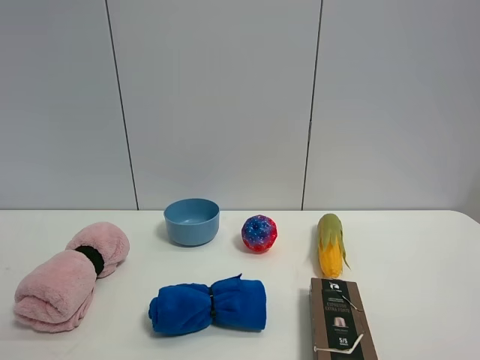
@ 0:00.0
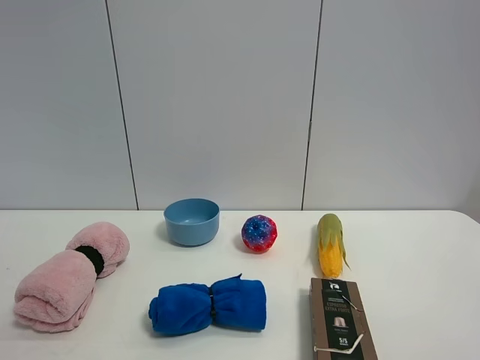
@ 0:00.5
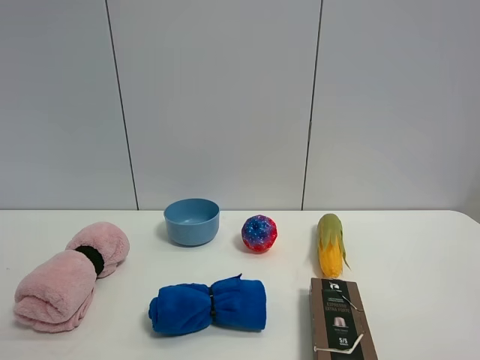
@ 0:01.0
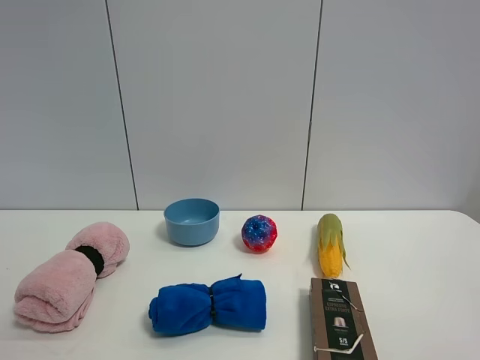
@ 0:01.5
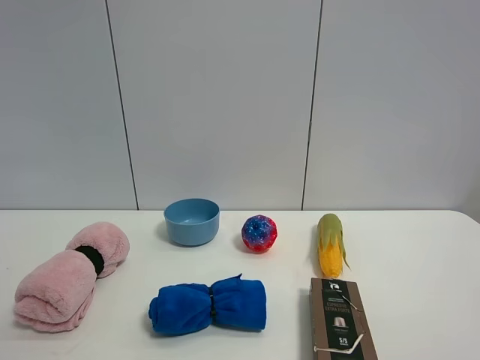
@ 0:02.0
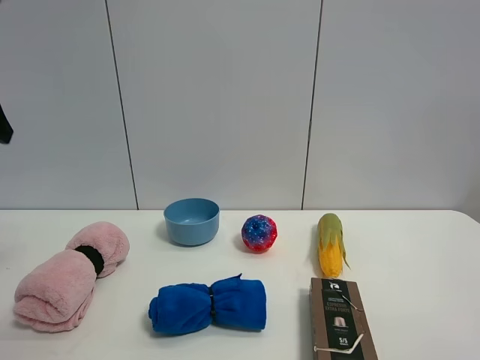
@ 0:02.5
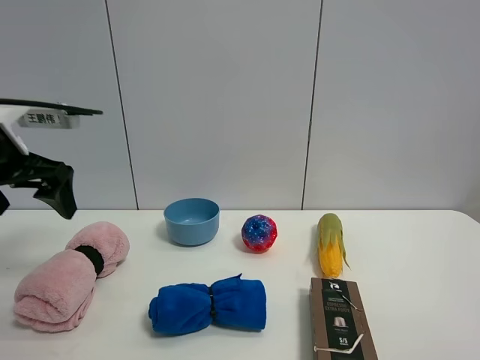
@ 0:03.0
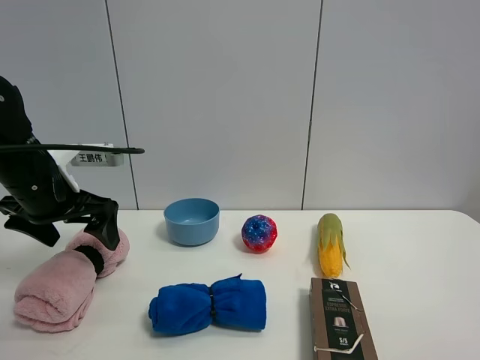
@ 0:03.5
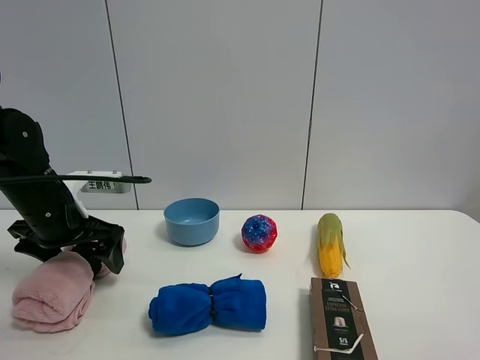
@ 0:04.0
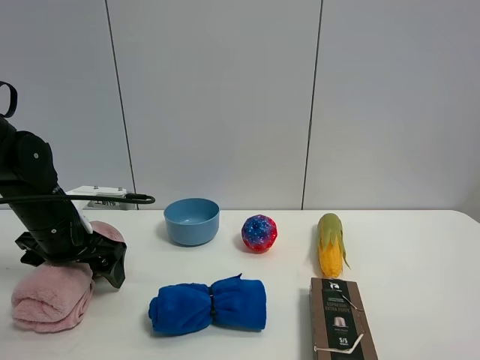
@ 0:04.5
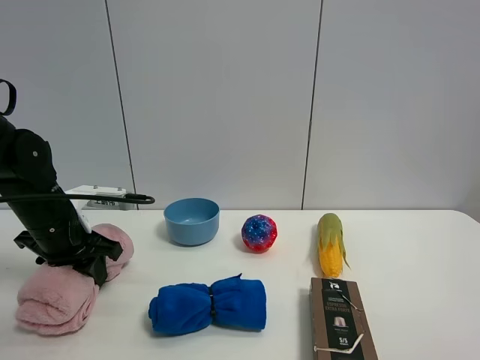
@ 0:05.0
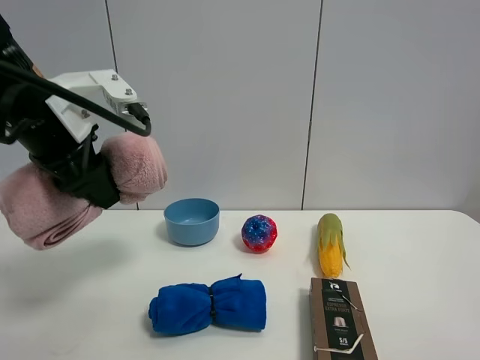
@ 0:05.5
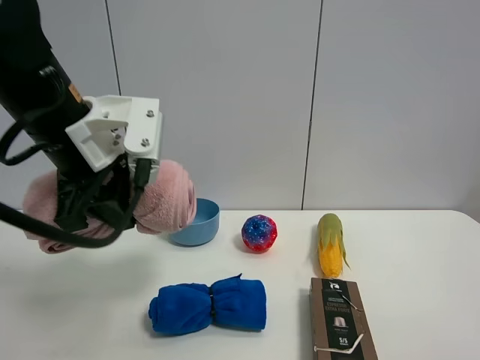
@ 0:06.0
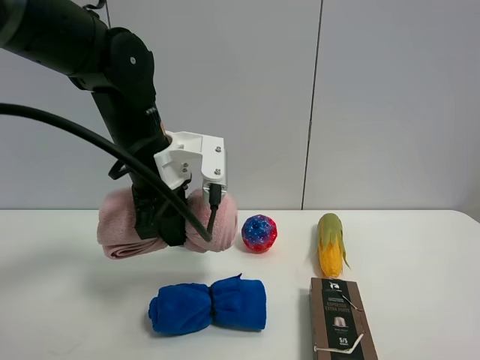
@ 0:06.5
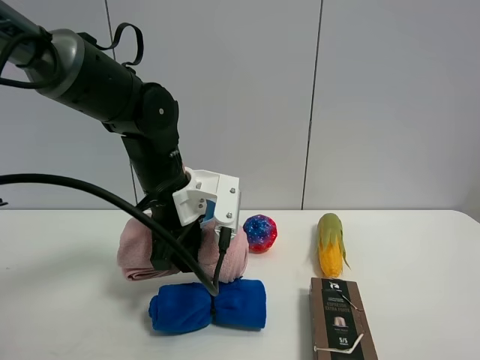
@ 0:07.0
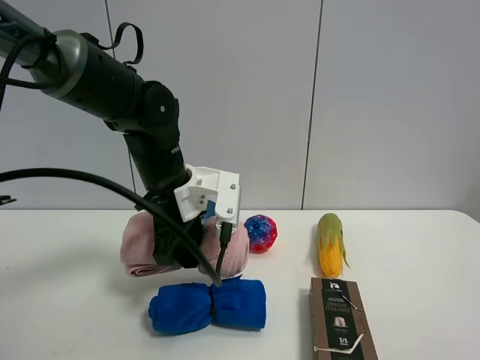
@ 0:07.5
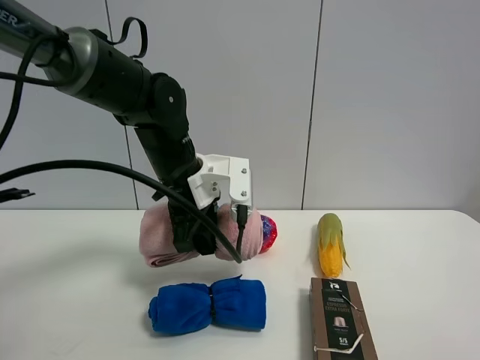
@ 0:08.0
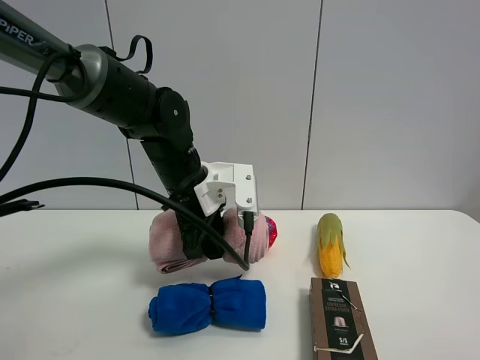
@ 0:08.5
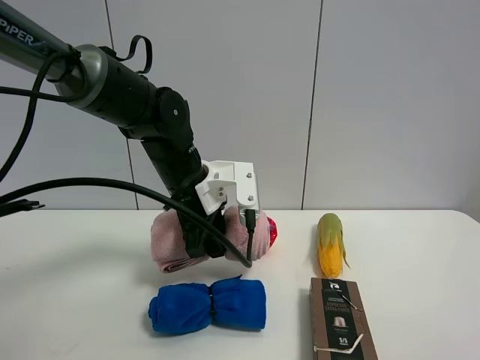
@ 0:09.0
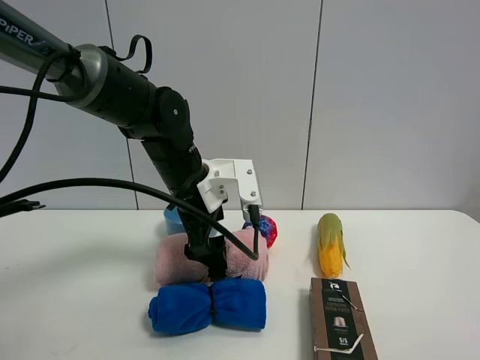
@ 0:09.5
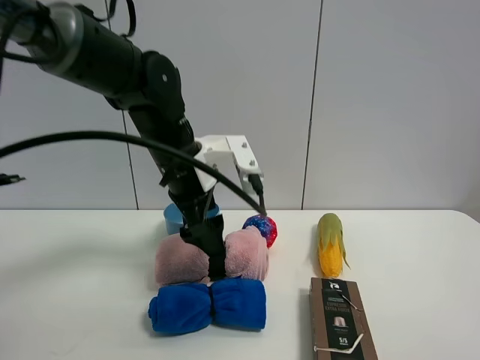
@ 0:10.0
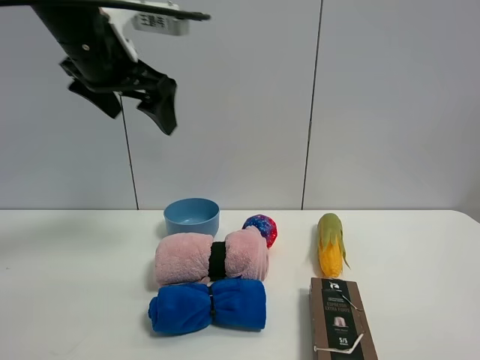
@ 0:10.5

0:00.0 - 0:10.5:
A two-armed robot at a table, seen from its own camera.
Task of the whole recording: the gripper move the object.
Step, 0:00.0 - 0:04.5: Grasp the pink towel with the left gripper.
Step, 0:05.0 - 0:09.5: Place the pink towel on the table with the left gripper.
0:02.0 - 0:04.0: The left gripper travels forward and downward by about 35 cm.
0:04.0 - 0:06.5: The left gripper goes about 15 cm to the right and upward, and closes.
0:06.5 - 0:08.5: The left gripper shifts by approximately 5 cm.
0:08.5 - 0:10.5: The left gripper moves upward and to the left, roughly 20 cm, and opens its fingers.

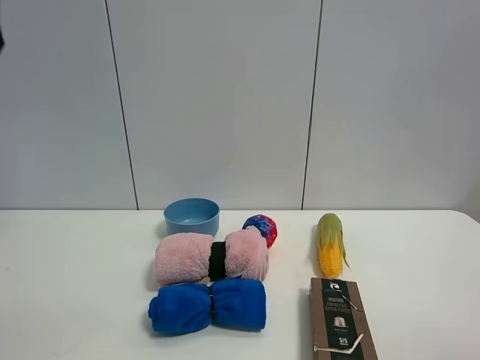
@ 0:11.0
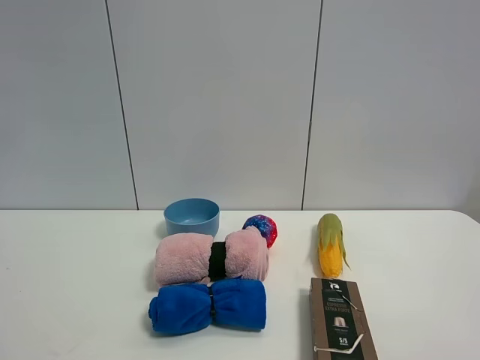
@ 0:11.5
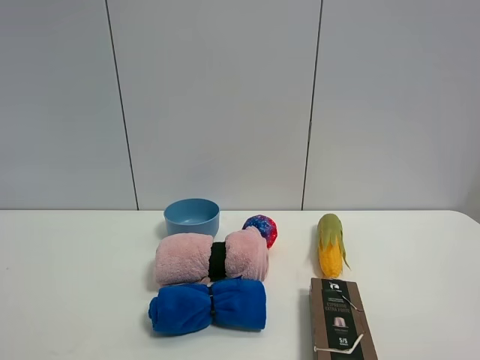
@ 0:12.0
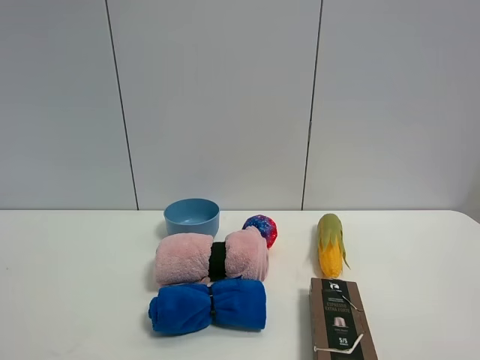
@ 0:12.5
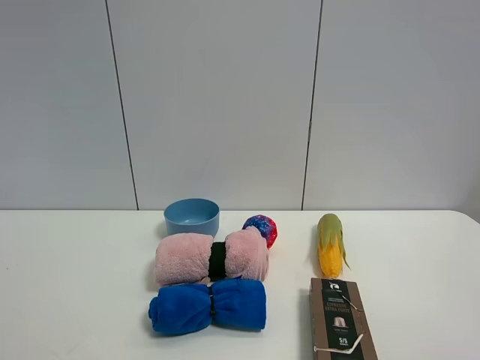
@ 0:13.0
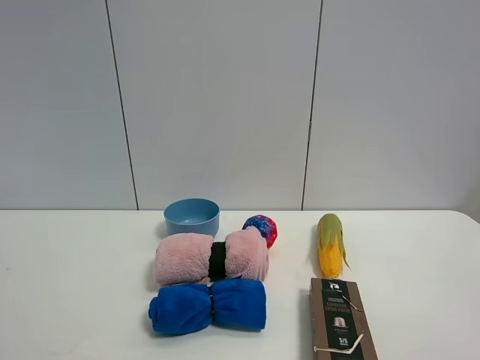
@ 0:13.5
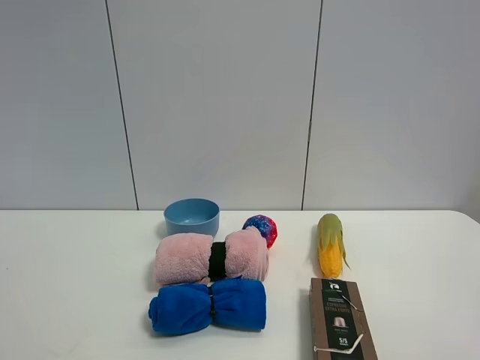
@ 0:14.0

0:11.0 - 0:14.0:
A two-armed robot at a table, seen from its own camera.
Task of the whole recording: the gripper move the object.
0:12.5 - 0:14.0: Both grippers stay about where they are.

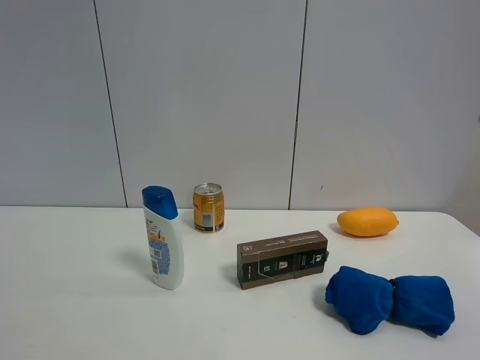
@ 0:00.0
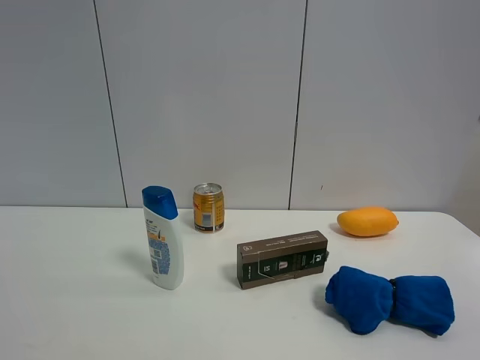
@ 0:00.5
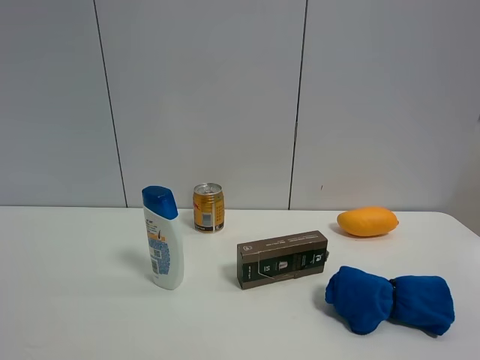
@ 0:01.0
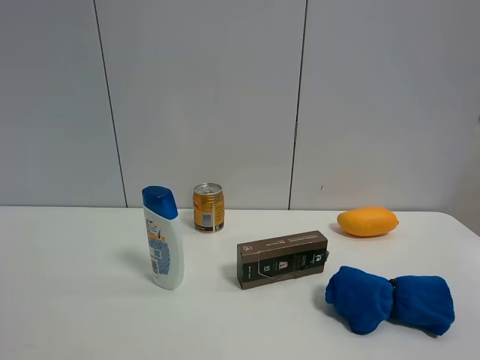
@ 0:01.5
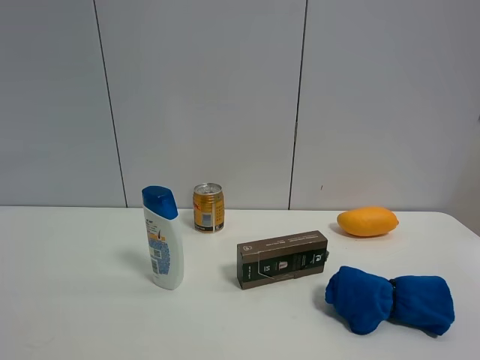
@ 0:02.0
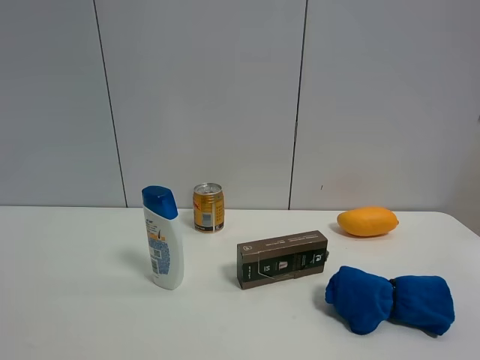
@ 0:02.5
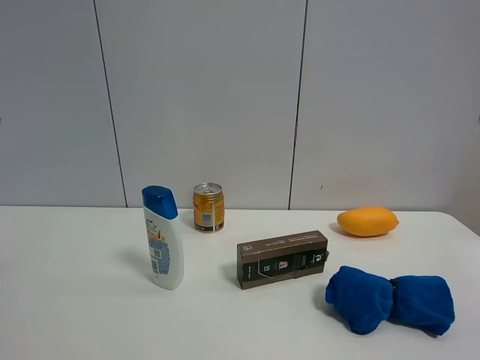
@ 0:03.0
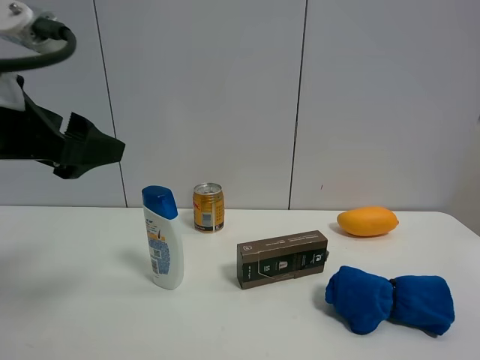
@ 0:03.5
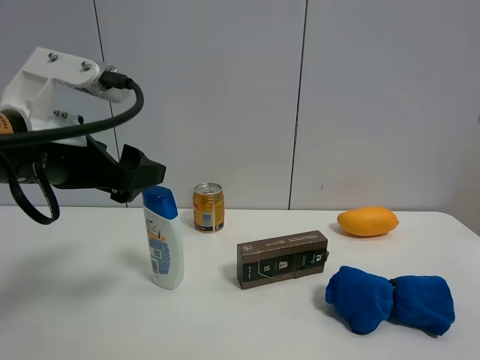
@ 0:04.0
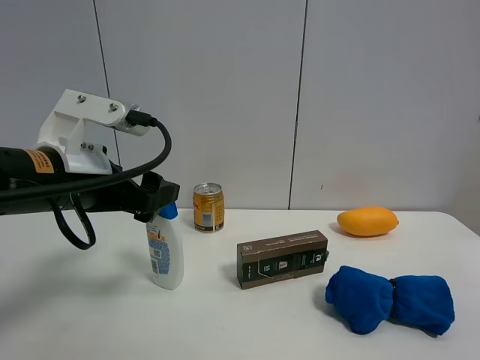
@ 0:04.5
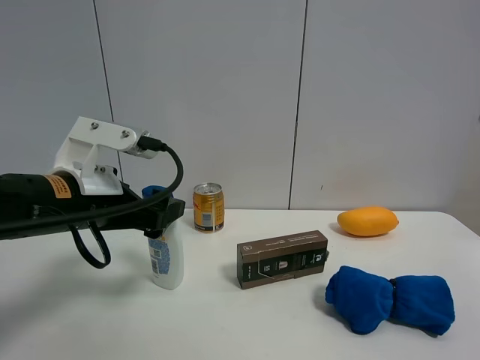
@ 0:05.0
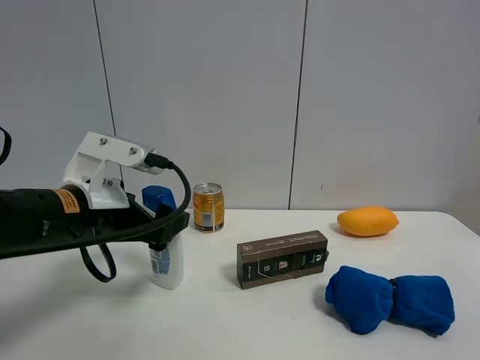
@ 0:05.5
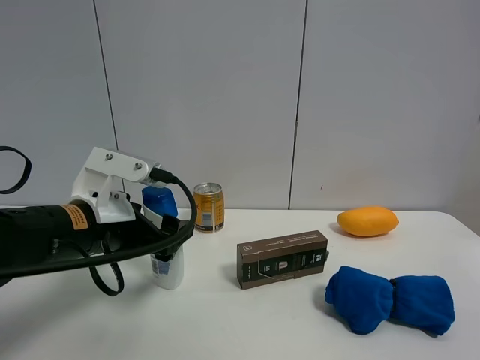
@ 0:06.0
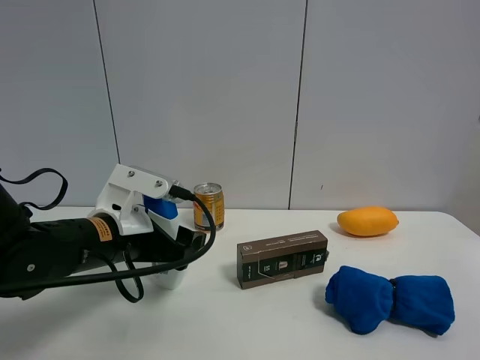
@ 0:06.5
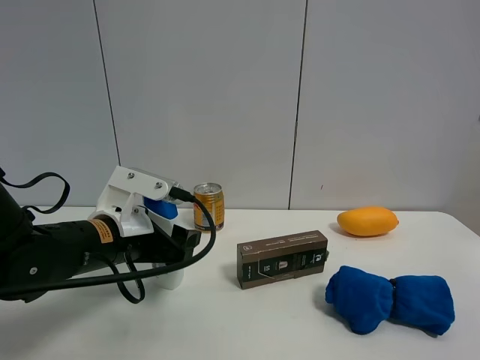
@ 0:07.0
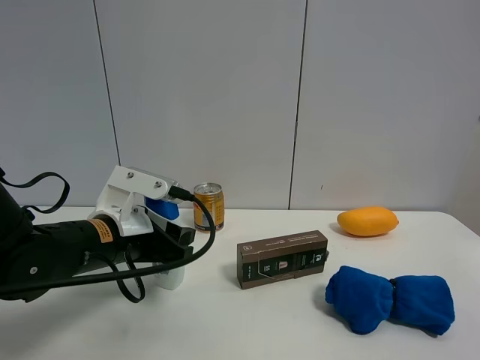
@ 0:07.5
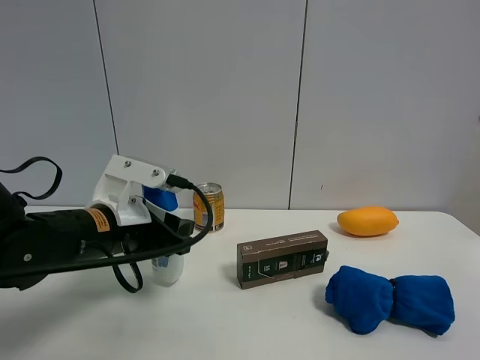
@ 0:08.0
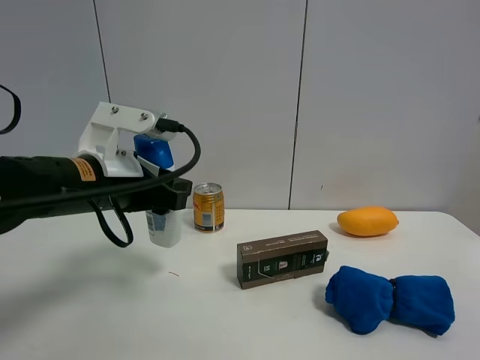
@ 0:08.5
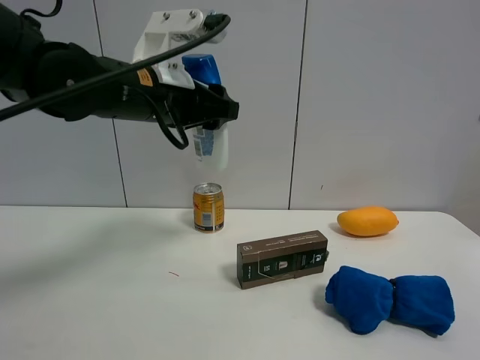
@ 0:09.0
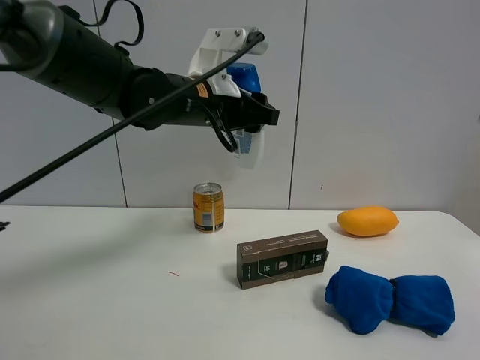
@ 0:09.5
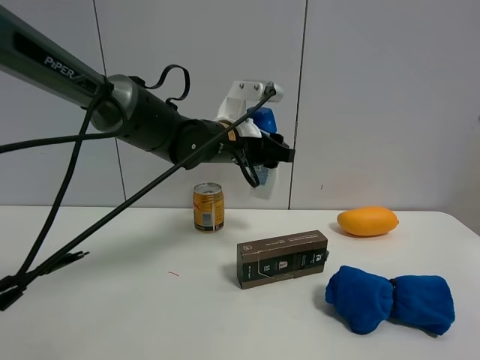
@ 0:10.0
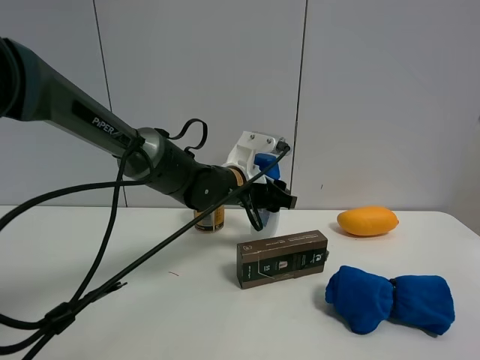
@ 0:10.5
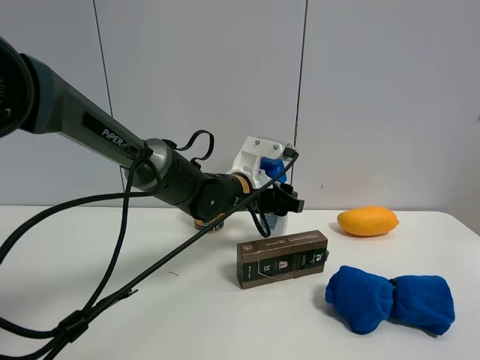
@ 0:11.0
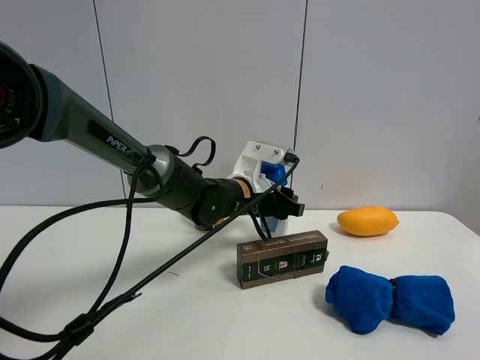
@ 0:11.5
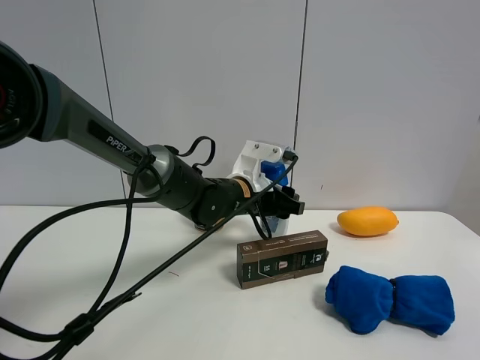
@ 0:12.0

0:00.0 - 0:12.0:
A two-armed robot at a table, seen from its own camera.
Task of the whole recording: the gripper move the object.
Step, 0:00.0 - 0:07.0: Grasp the shampoo with the left gripper.
0:02.0 - 0:04.0: The left gripper is displaced forward, to the right and downward by approximately 25 cm.
0:04.0 - 0:06.0: The left gripper goes approximately 10 cm downward.
0:06.0 - 0:08.0: The left gripper closes up.
0:08.0 - 0:10.0: The left gripper shifts some 20 cm to the right, forward and upward.
0:10.0 - 0:12.0: The left gripper heads downward, covering roughly 10 cm.
